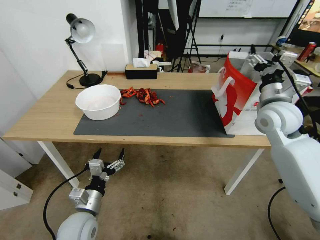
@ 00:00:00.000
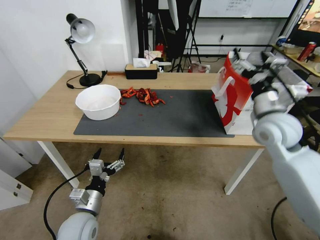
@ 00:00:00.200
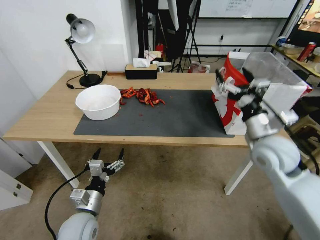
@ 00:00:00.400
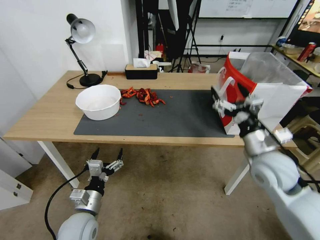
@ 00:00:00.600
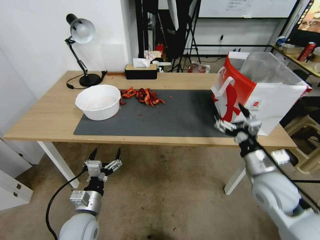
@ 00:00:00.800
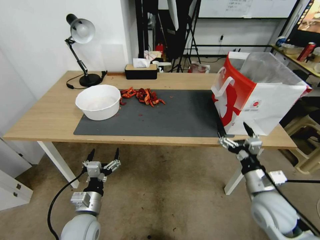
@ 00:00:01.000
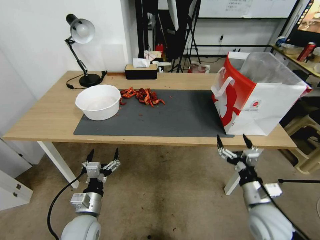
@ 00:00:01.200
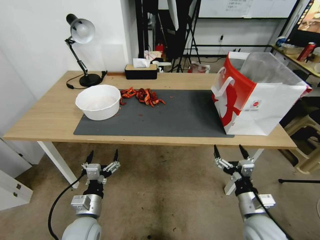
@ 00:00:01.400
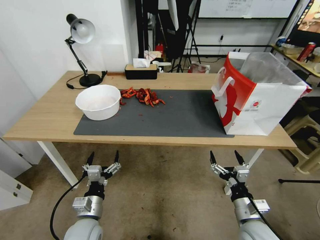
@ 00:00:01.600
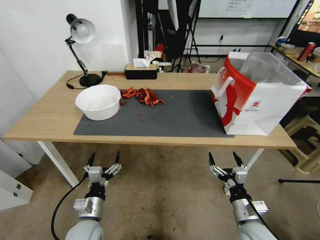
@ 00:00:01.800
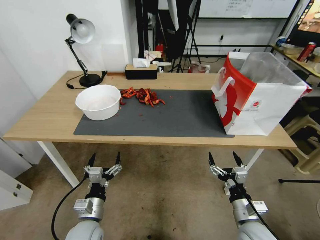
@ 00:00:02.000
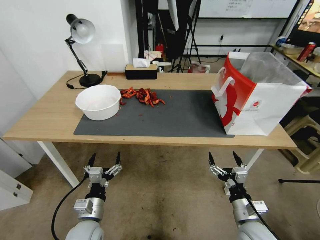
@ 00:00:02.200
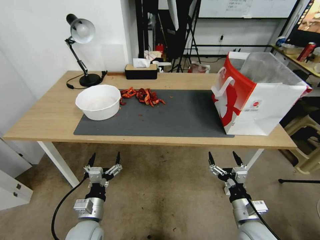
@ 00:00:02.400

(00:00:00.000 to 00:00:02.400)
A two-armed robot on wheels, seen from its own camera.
Task of the whole recording: Close the takeout container lid, then place the container into the takeout bag.
00:00:00.000 - 00:00:01.200: The right gripper heads downward and backward, covering about 30 cm.
00:00:01.200 - 00:00:02.400: The right gripper is displaced downward by roughly 5 cm.
